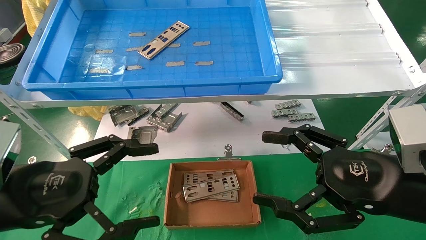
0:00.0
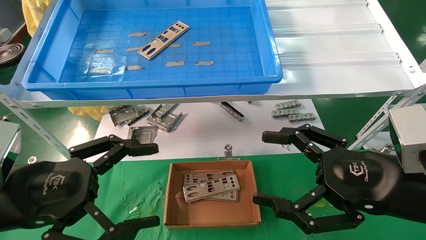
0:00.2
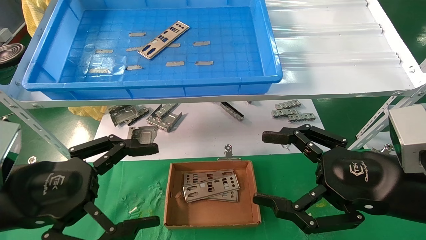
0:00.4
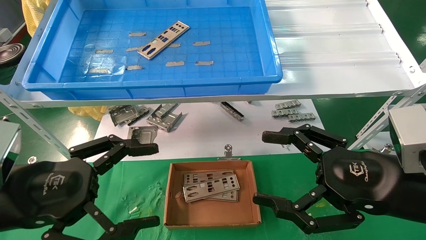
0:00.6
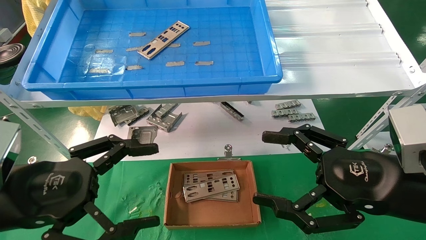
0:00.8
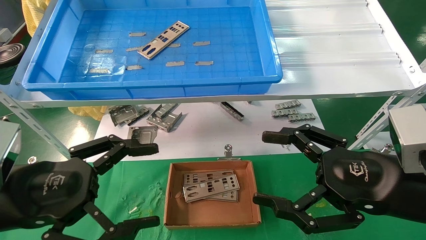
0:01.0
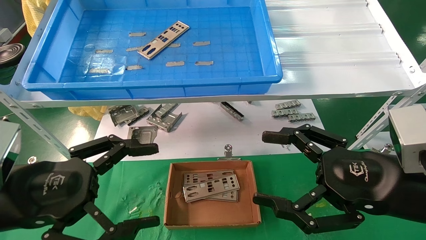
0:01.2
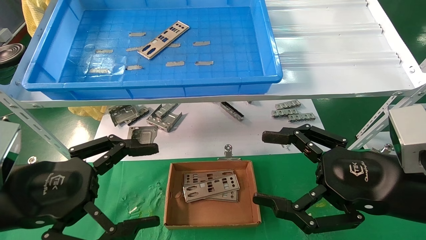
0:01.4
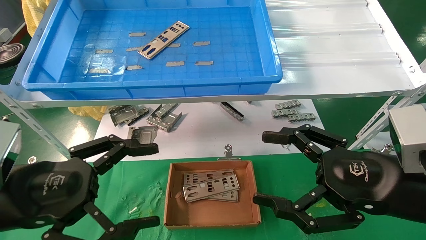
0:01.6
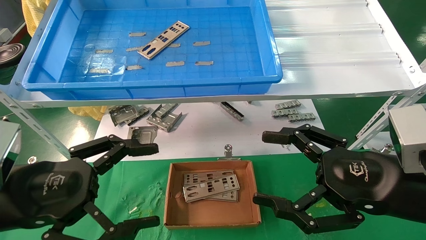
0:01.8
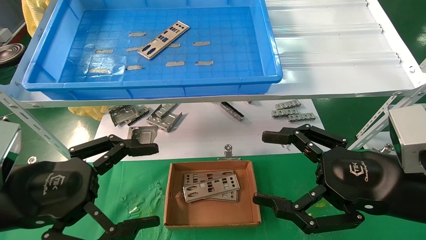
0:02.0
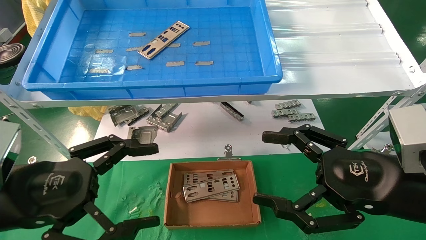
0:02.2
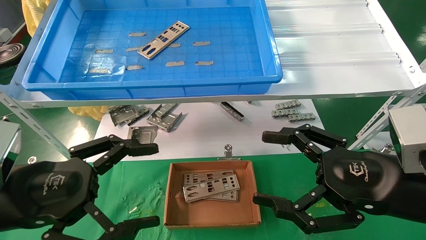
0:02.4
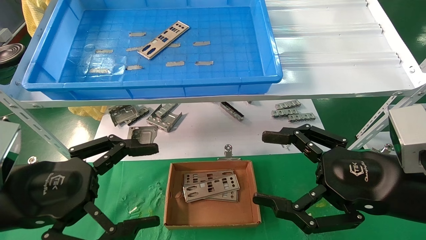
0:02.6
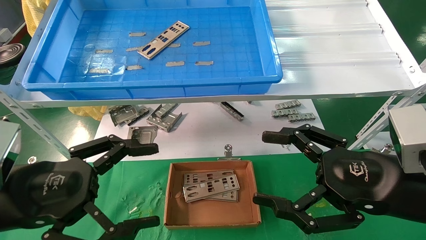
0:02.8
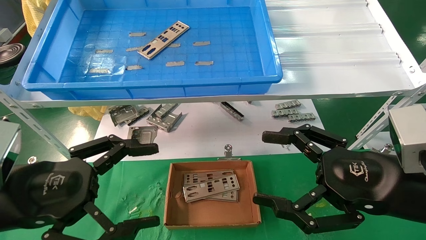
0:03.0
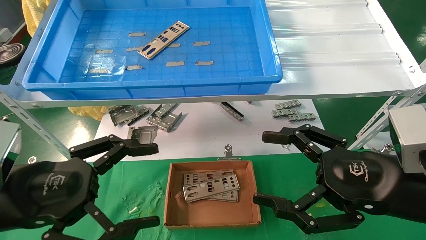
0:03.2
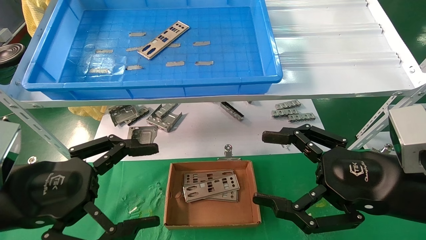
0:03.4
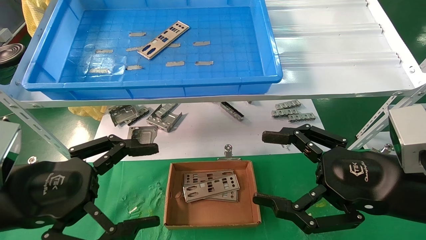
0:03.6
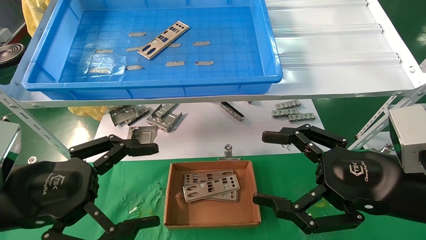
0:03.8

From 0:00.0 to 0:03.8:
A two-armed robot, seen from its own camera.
Task of the whole recording: pick up the parts on the tray and put them in the cardboard box.
From 0:00.0 to 0:03.8: Neither gripper changes place.

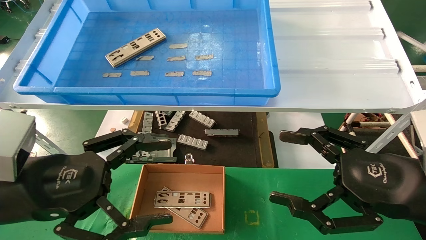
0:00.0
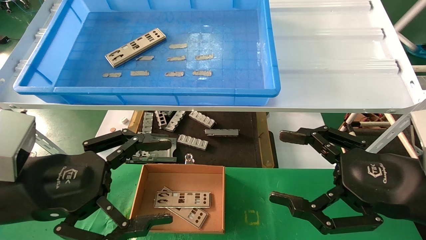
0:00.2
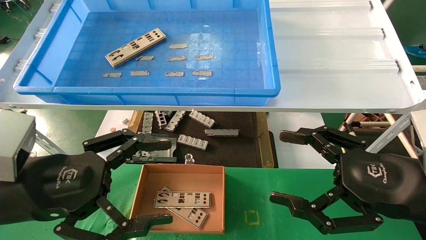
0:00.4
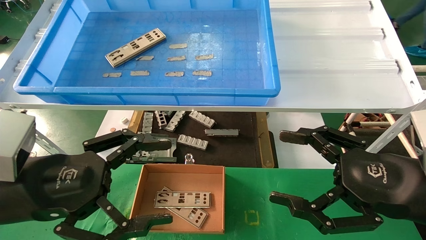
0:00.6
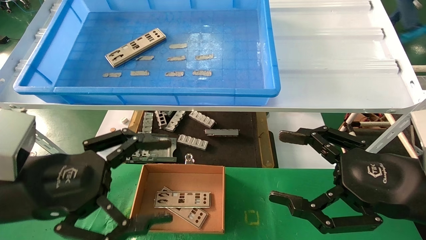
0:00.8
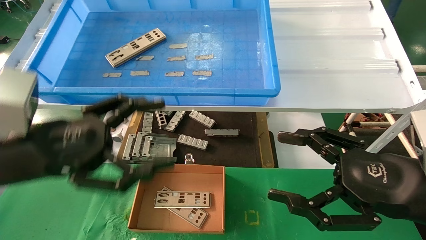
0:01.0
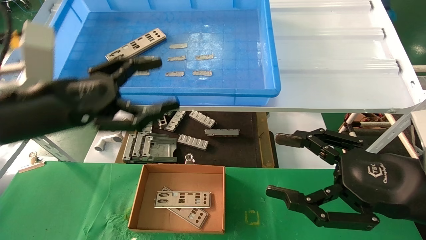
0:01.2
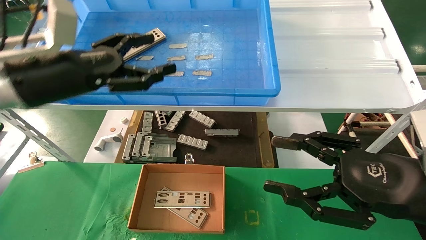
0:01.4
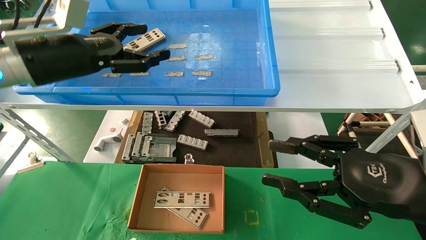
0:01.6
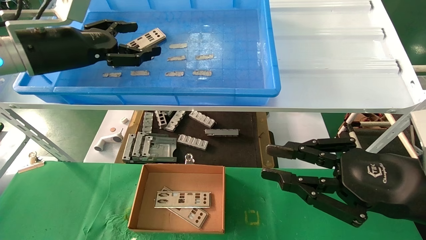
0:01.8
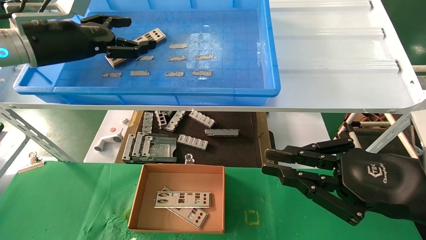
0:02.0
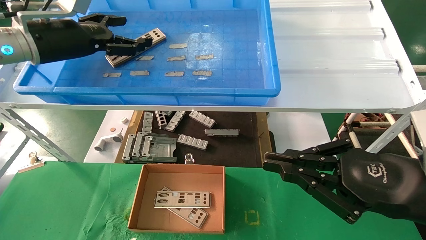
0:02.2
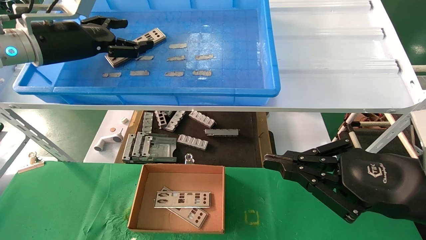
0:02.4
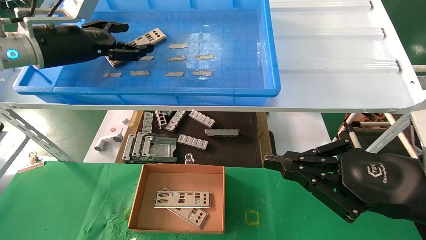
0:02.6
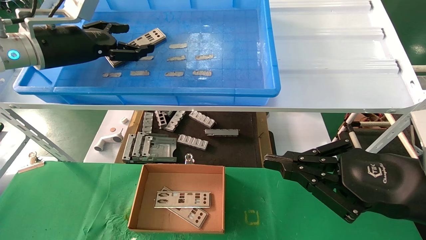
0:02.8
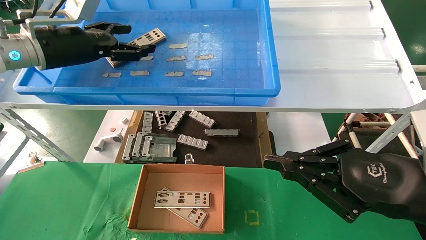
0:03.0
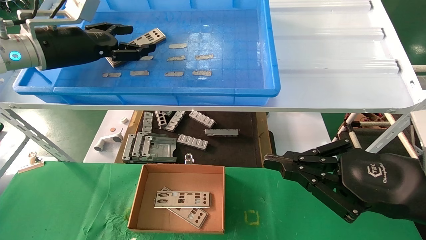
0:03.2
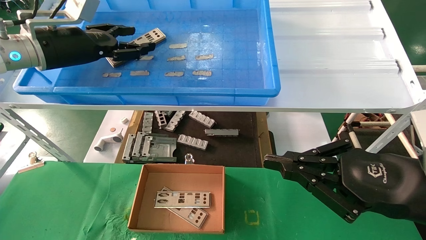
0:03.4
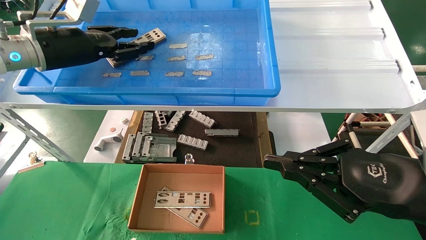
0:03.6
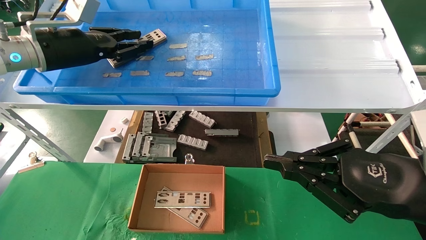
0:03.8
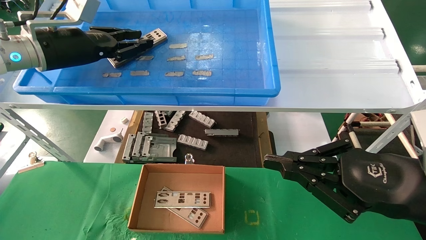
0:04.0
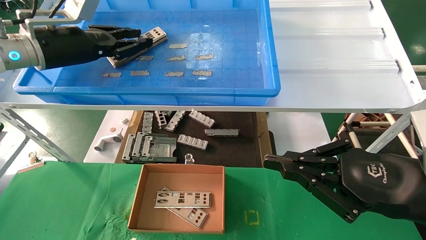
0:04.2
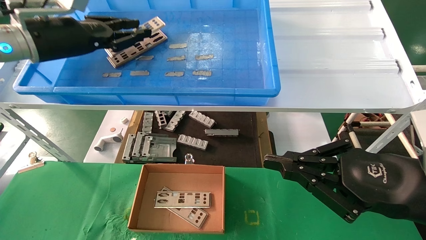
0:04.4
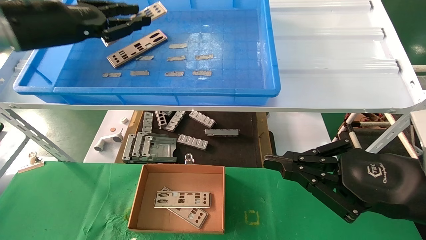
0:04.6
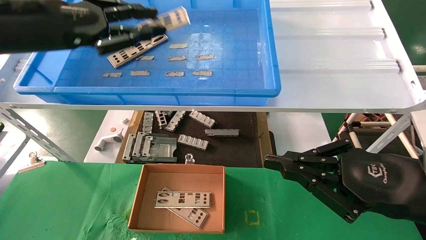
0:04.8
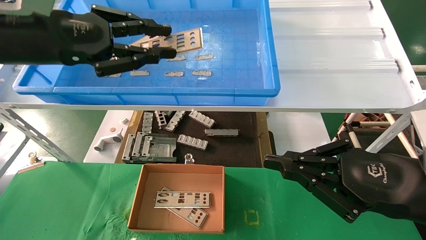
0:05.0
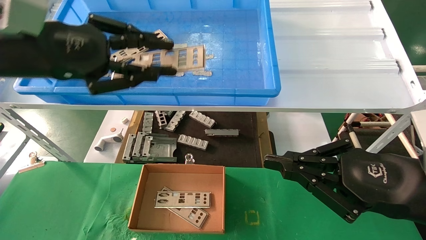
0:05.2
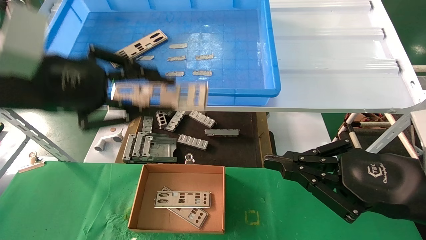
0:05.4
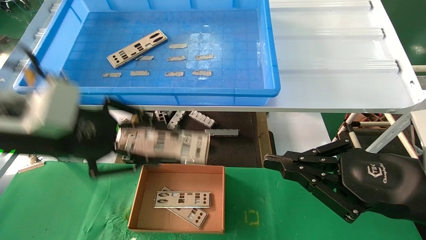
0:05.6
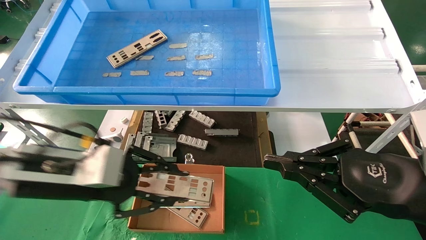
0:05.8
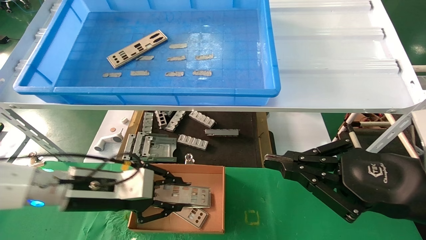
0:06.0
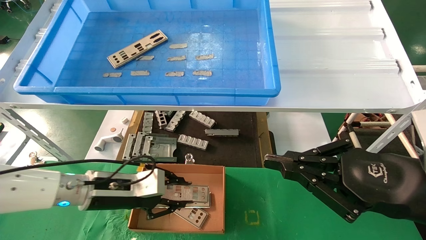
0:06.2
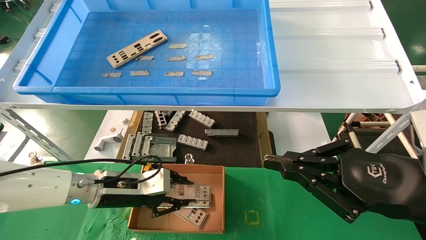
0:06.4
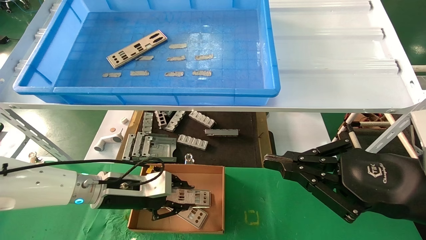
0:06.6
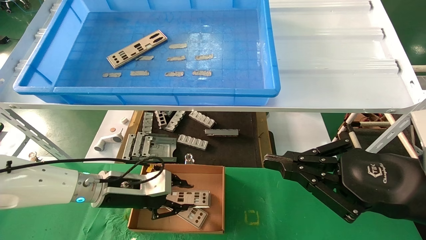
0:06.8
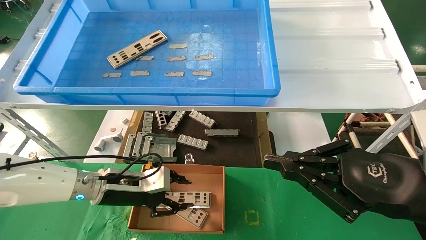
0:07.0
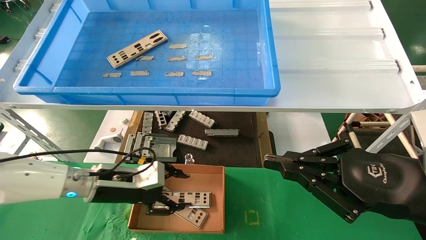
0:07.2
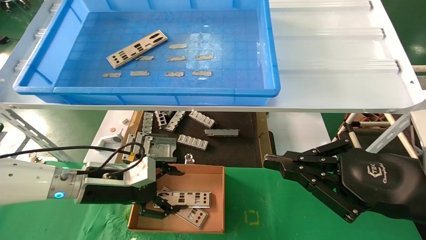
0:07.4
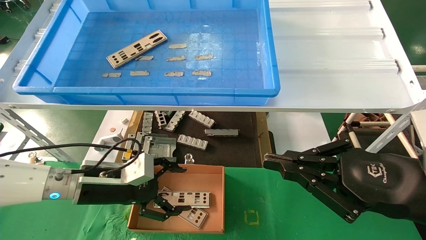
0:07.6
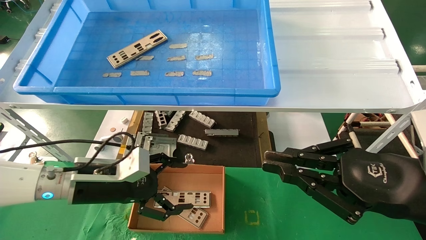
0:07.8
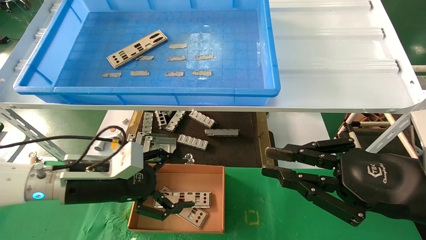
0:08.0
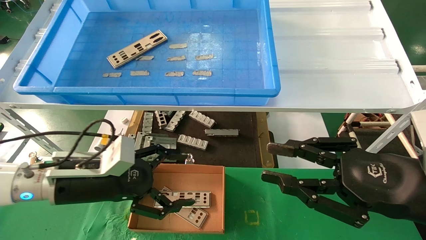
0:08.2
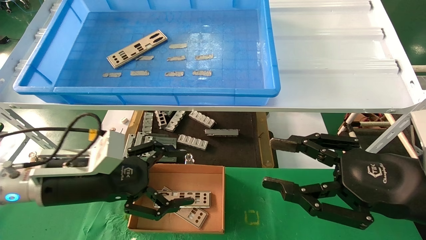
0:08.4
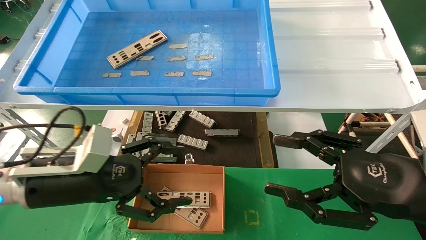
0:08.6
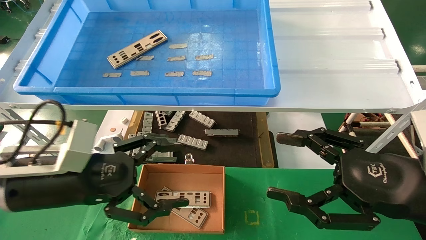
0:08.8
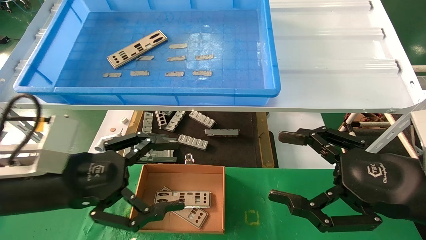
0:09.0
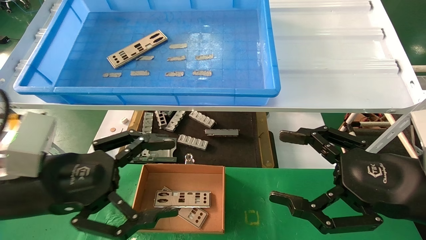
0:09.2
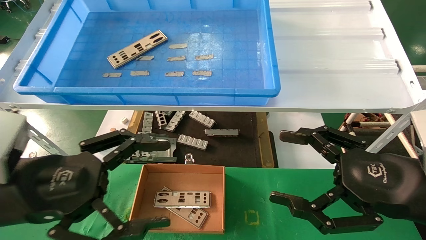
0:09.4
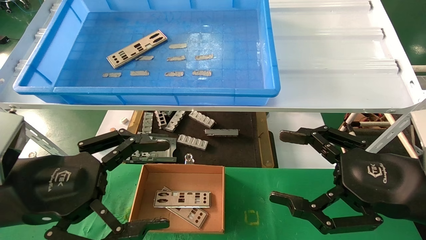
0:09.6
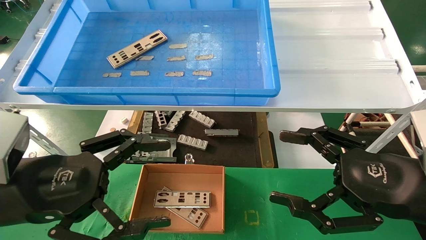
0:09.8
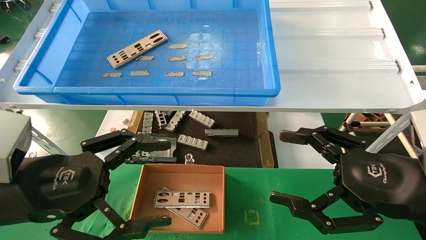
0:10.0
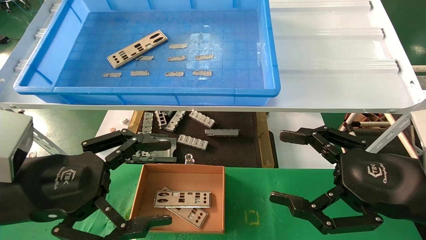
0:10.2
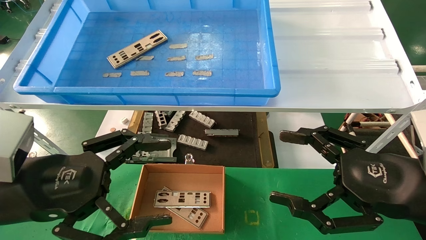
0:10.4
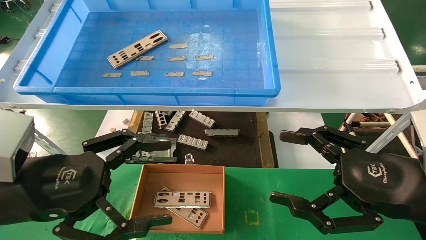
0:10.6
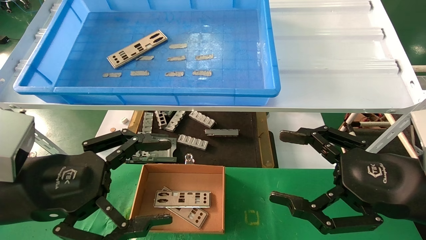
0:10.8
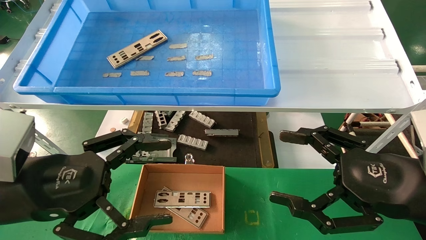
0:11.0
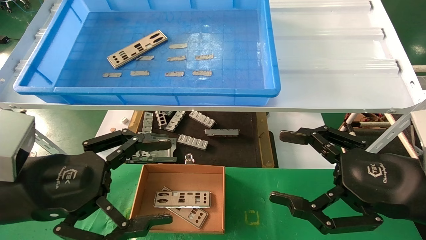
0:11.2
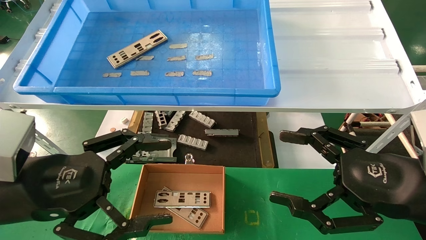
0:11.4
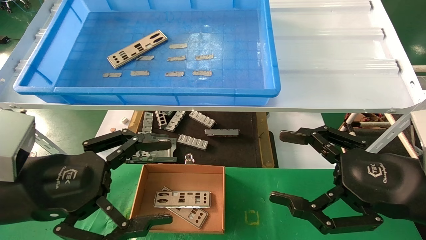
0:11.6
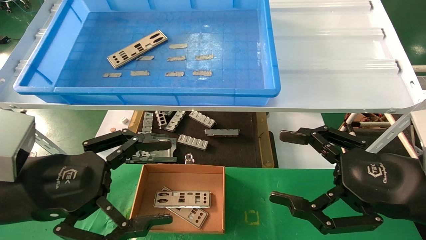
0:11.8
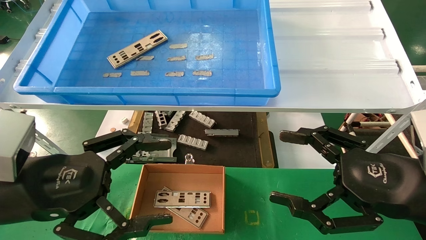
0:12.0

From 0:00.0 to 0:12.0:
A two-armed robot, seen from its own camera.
Task of the whole recording: pick up the parts on the tray and put them in the cardboard box.
Step, from 0:01.2 to 0:04.0: Pick up the IO bracket from the container box.
Step, from 0:04.2 to 0:07.0: Place the IO bracket into the ingredient slot.
From 0:00.0 to 0:01.6: The left gripper heads forward and upward, covering roughly 20 cm. Meanwhile the right gripper closes its fingers.
From 0:01.6 to 0:03.0: The right gripper closes its fingers. The left gripper heads forward, covering some 5 cm.
From 0:03.0 to 0:04.4: The left gripper closes up.
From 0:04.4 to 0:06.0: The left gripper is displaced downward by roughly 25 cm.
From 0:06.0 to 0:07.6: The left gripper opens its fingers.
From 0:07.6 to 0:09.0: The left gripper heads backward and upward, covering roughly 15 cm. The right gripper opens up.
From 0:09.0 to 0:10.4: The grippers move only a little.
From 0:10.4 to 0:12.0: Both grippers stay put.

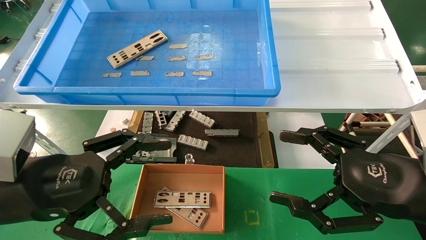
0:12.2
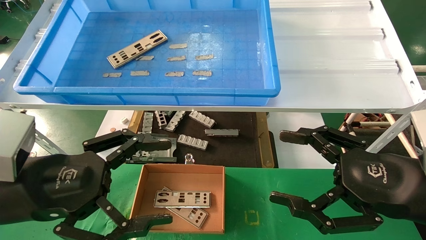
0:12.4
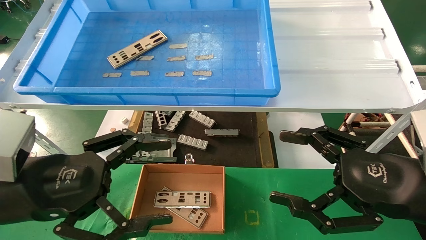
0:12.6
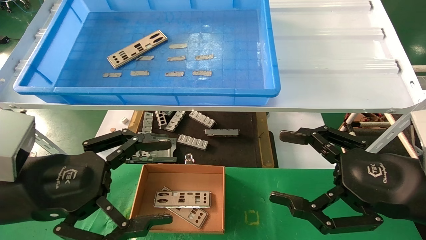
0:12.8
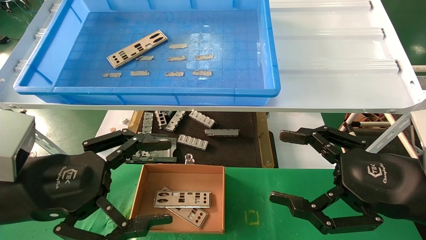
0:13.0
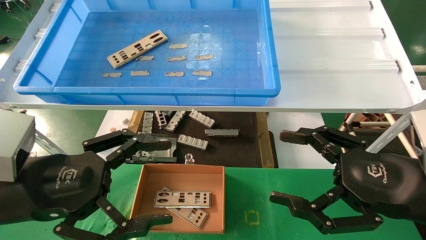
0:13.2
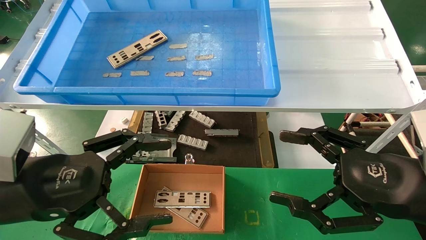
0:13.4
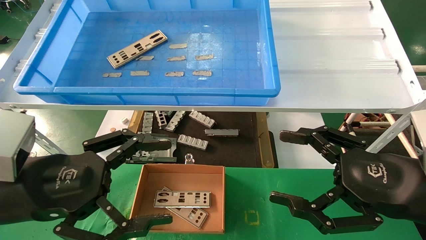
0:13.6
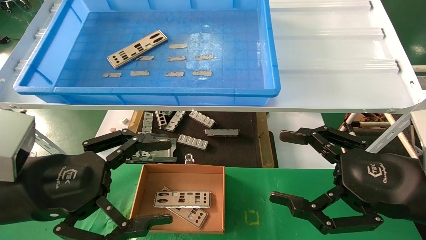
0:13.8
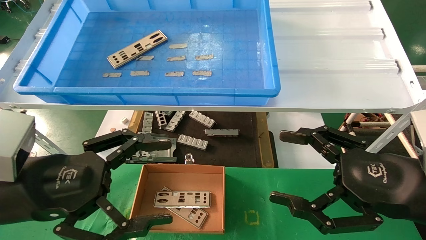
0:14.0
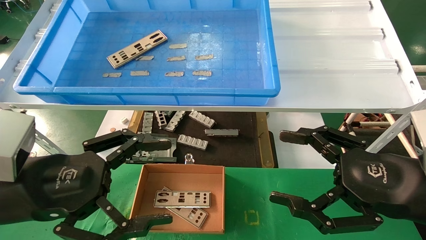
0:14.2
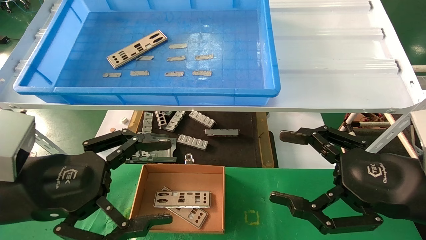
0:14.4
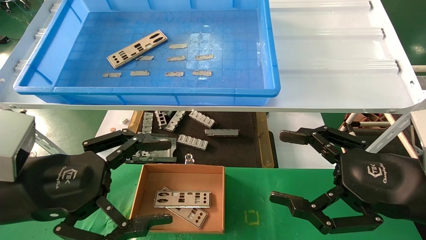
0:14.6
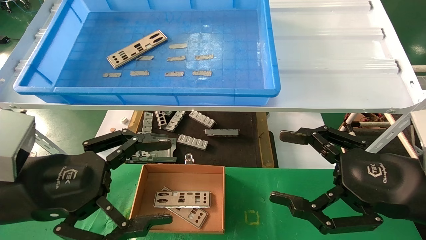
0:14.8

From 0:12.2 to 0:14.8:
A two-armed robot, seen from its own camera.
Task of the whole recording: pick up the parts on the tray and put them in the cardboard box.
From 0:12.2 to 0:14.8: Both grippers stay about where they are.
